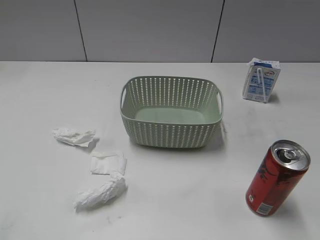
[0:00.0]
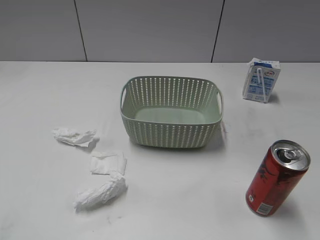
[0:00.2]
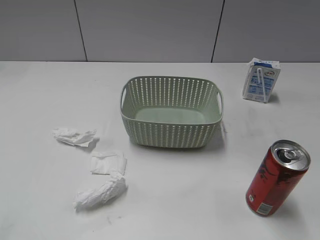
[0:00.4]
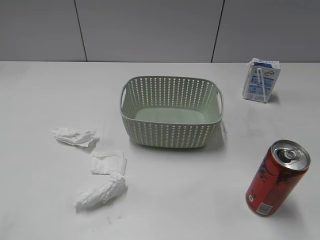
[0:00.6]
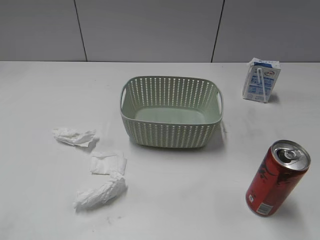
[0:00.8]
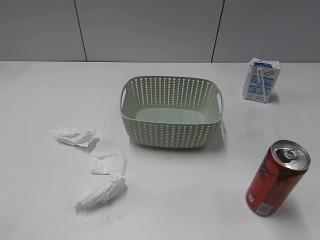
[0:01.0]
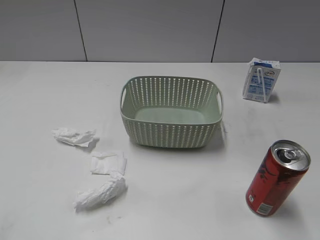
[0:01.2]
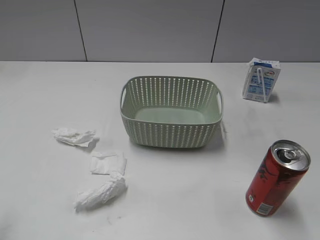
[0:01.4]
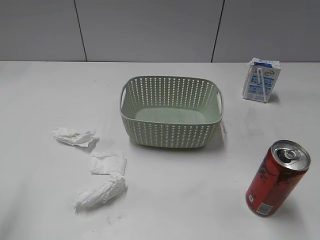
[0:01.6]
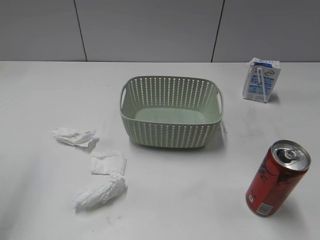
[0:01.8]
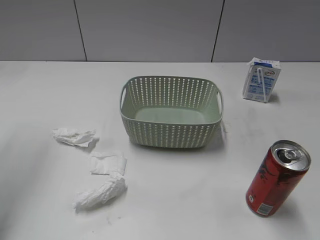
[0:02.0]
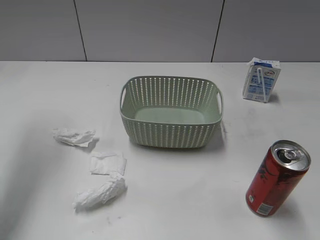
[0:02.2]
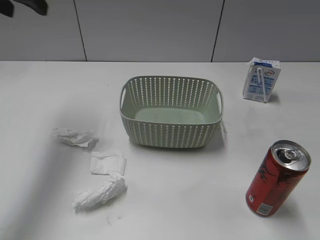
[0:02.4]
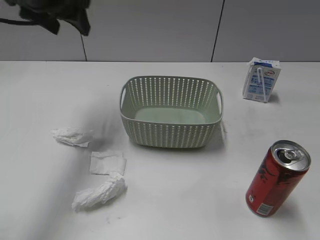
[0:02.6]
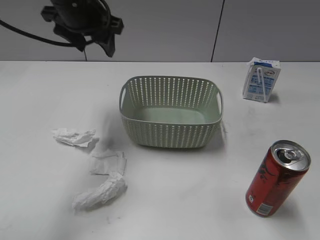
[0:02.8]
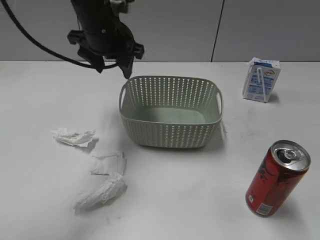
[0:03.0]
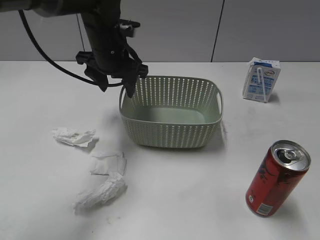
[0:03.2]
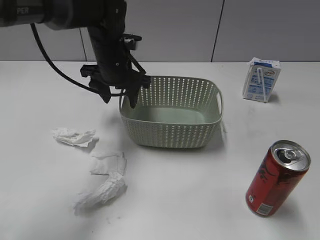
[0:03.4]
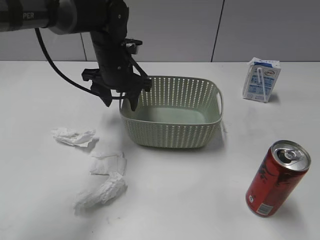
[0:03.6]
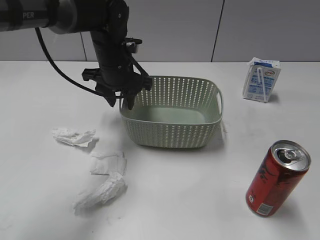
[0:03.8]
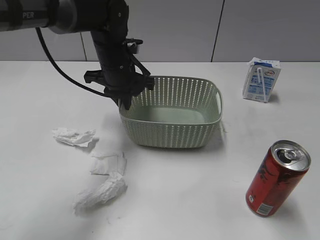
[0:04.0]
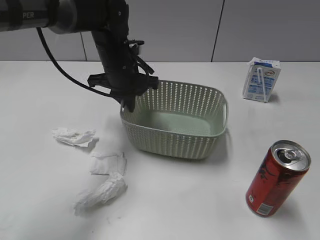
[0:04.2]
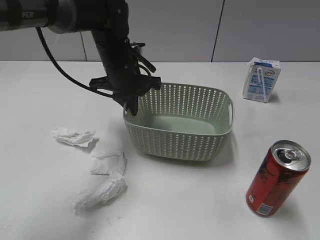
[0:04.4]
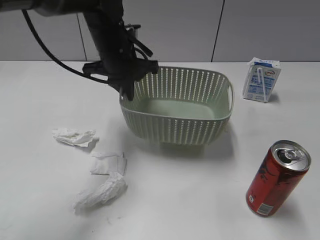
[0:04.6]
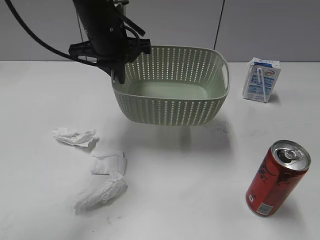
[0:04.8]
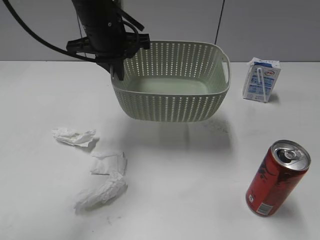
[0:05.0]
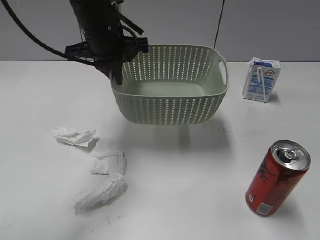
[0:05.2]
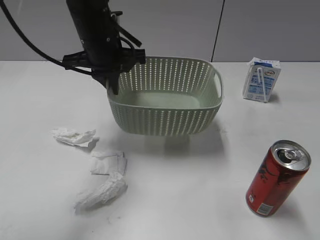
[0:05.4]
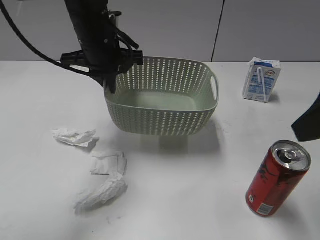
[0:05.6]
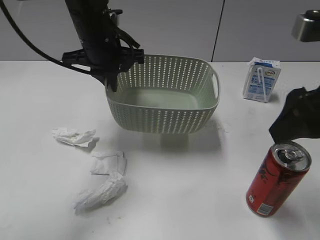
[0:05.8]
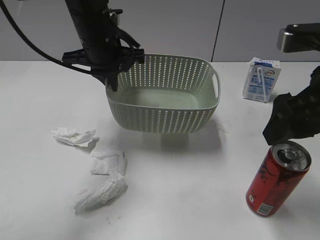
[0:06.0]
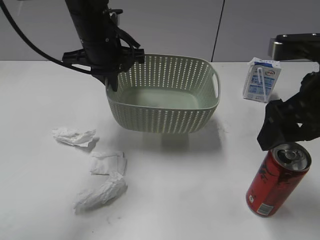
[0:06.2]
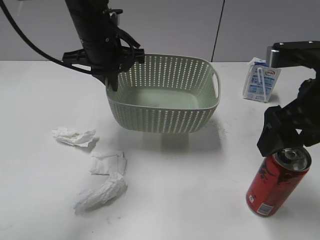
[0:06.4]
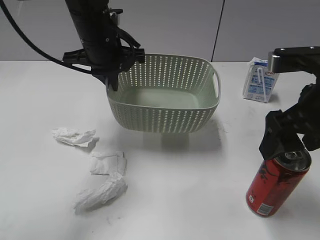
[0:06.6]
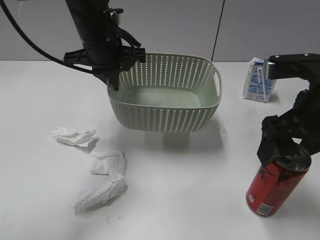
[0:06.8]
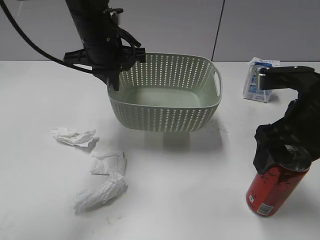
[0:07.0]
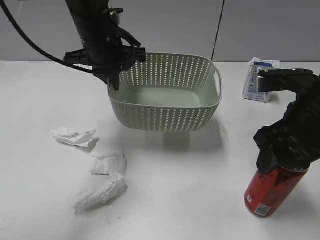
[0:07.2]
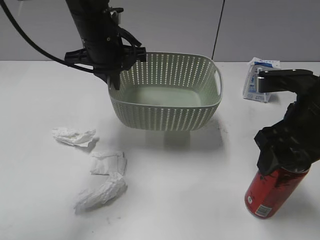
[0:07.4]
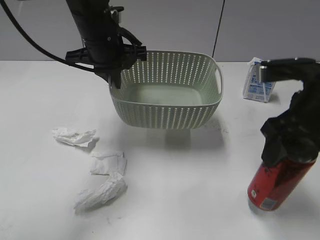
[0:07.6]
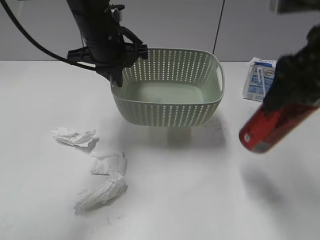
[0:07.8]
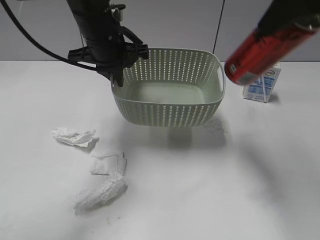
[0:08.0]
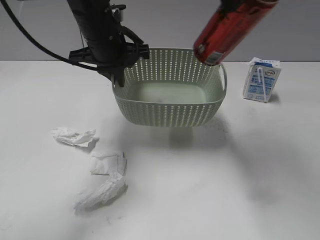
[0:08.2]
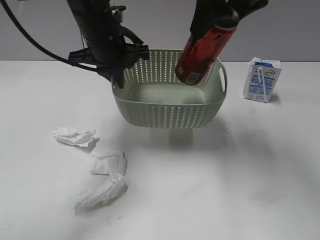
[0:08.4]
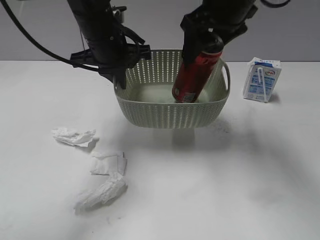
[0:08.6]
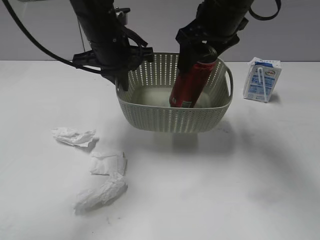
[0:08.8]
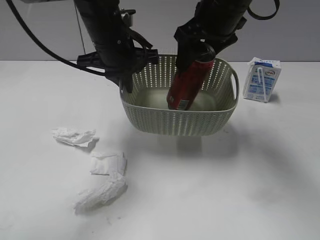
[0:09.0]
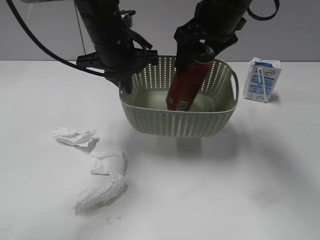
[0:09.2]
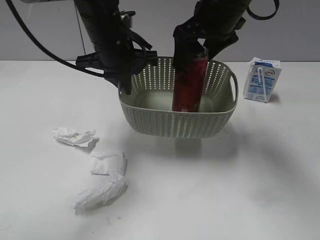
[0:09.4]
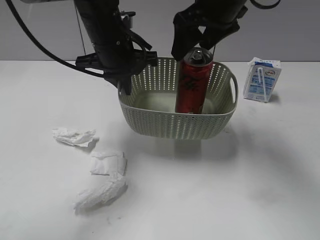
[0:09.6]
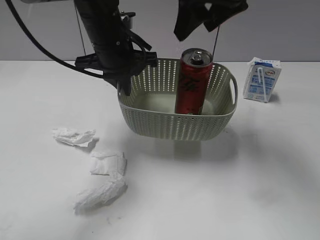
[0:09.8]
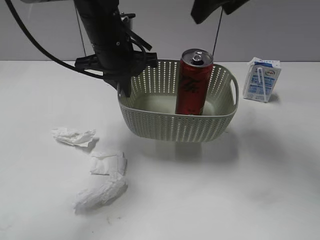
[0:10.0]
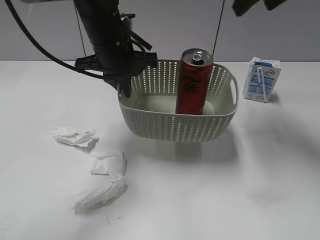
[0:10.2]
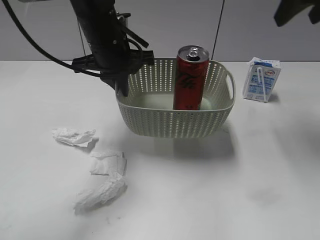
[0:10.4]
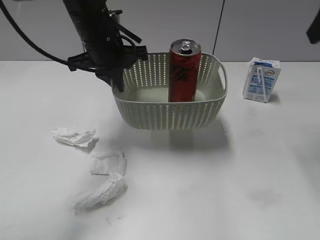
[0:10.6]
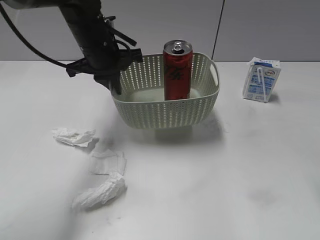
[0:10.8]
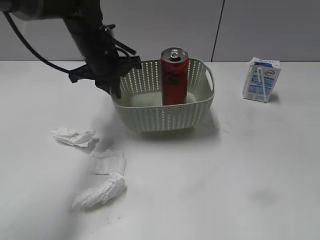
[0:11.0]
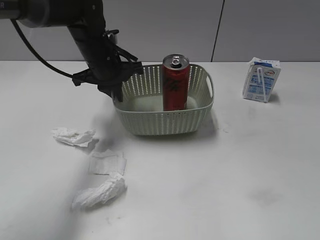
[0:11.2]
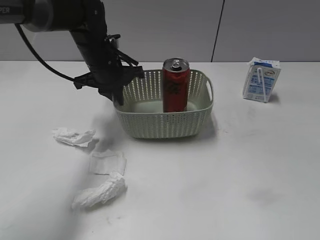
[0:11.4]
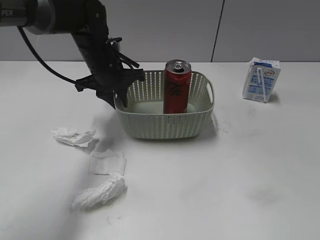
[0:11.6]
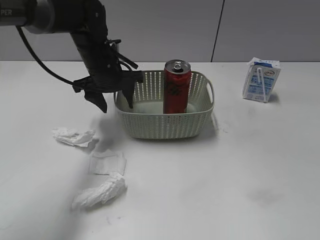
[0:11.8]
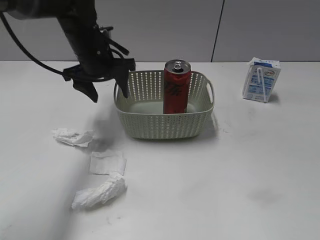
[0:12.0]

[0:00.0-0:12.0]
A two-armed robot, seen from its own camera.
Step, 0:02.4 to 0:04.0: Grasp the basket with left gripper.
Step, 0:04.2 to 0:05.4: Lift the basket with left gripper.
Step, 0:05.6 to 0:07.4: Grasp the cola can with right gripper.
Step, 0:07.6 to 0:09.6: Place the cola can in the basket with right gripper.
Step, 0:09.8 to 0:11.8: Place the basket on the table with left gripper.
0:01.6 to 0:03.0: The left gripper is displaced forward, to the right and downward by approximately 35 cm.
0:03.0 to 0:04.4: The left gripper goes some 5 cm downward, and closes.
0:04.4 to 0:06.0: The right gripper is displaced forward and to the left by about 25 cm, and opens up. The left gripper moves upward, about 5 cm.
0:06.0 to 0:07.6: The right gripper closes up.
0:07.6 to 0:09.0: The right gripper is displaced forward and to the left by roughly 20 cm, and goes upward and returns, some 15 cm each way.
0:09.0 to 0:10.4: The right gripper moves to the right and upward, some 15 cm, and opens up.
0:10.4 to 0:12.0: The right gripper travels backward by about 35 cm. The left gripper ends up some 5 cm from where it was, and opens up.

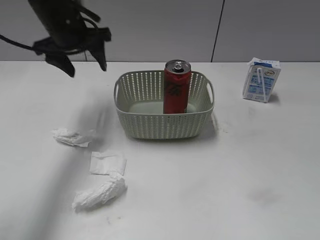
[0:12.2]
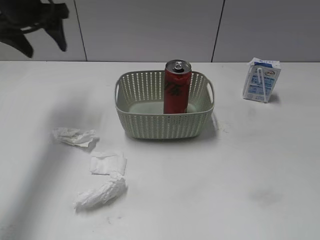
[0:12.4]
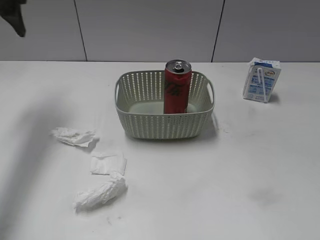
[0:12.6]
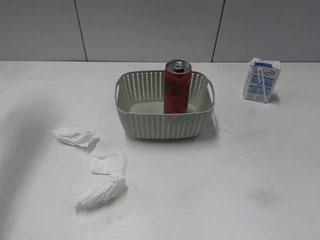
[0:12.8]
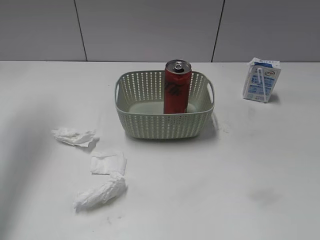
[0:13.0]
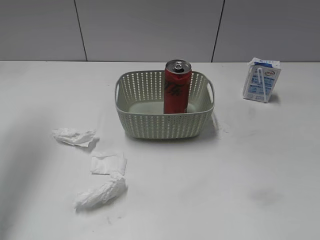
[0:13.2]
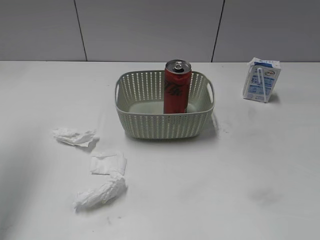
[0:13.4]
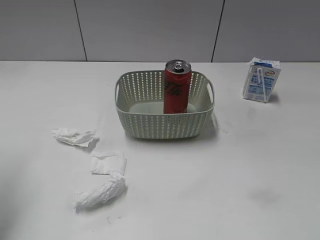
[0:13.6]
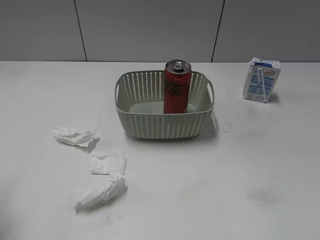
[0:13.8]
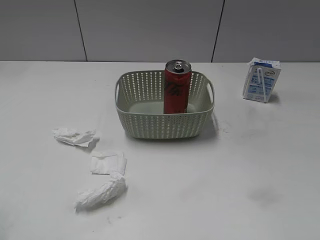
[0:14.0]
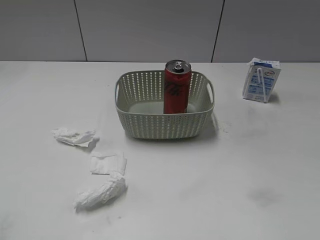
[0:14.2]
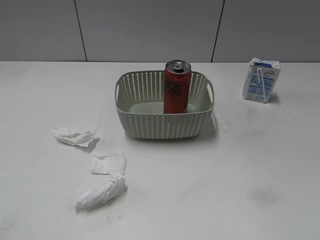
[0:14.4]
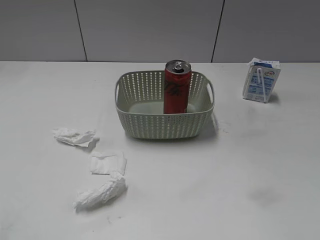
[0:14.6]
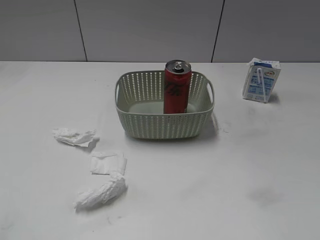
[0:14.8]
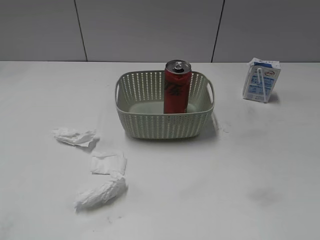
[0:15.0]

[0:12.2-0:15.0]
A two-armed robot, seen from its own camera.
0:12.2 to 0:13.6: The left gripper shifts approximately 25 cm backward and to the left.
0:13.6 to 0:15.0: The left gripper is displaced backward by approximately 25 cm.

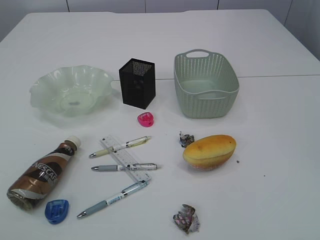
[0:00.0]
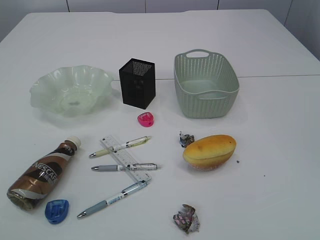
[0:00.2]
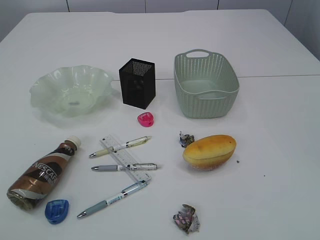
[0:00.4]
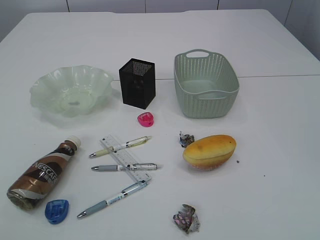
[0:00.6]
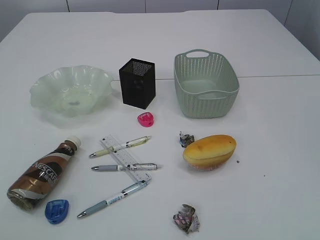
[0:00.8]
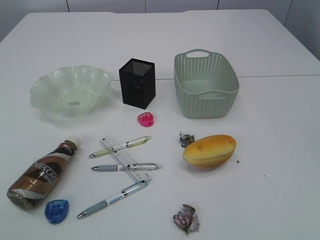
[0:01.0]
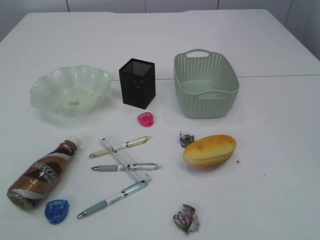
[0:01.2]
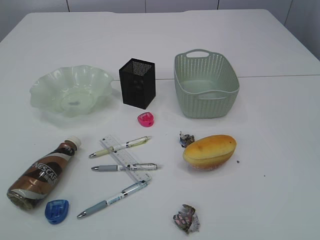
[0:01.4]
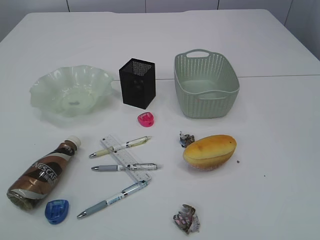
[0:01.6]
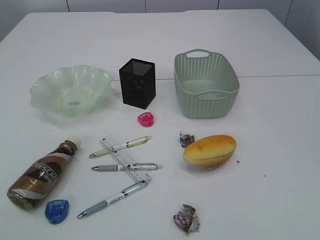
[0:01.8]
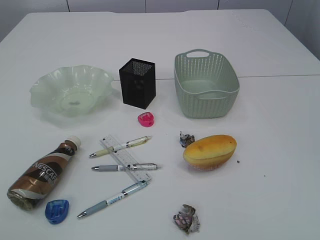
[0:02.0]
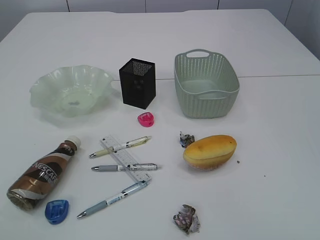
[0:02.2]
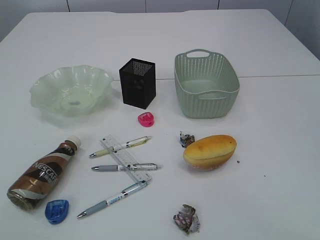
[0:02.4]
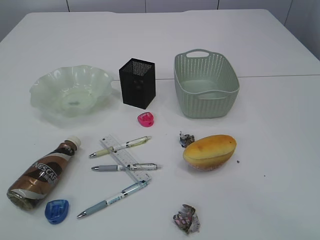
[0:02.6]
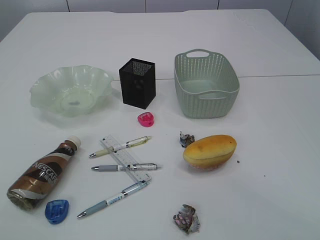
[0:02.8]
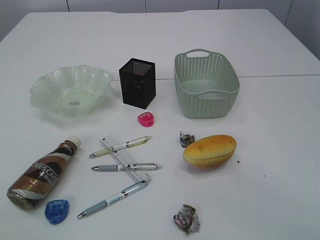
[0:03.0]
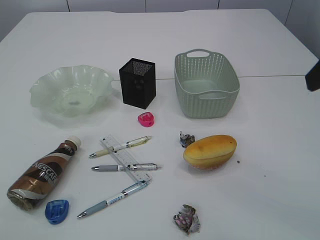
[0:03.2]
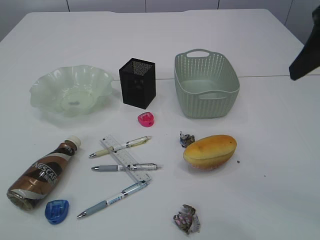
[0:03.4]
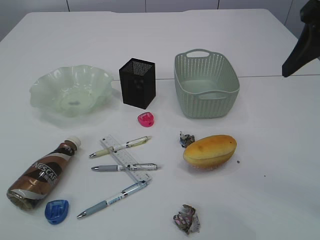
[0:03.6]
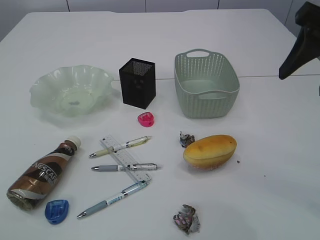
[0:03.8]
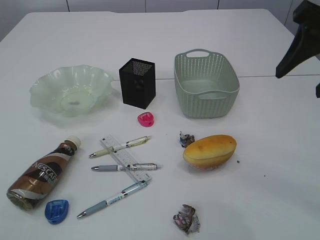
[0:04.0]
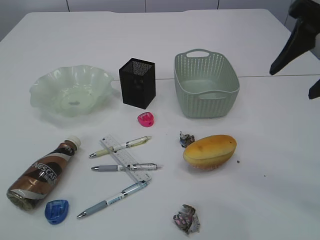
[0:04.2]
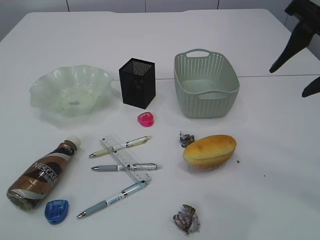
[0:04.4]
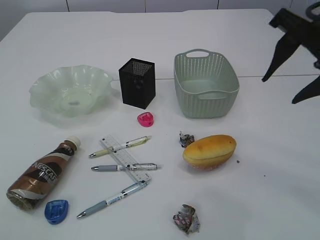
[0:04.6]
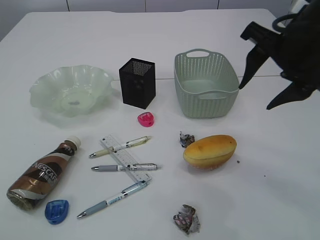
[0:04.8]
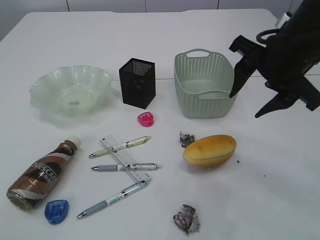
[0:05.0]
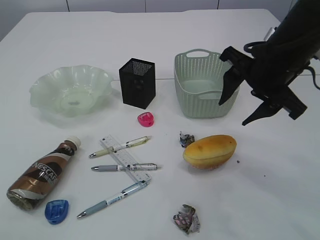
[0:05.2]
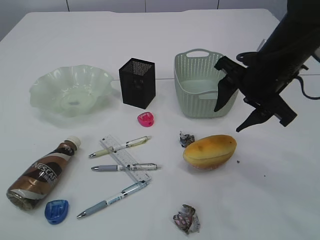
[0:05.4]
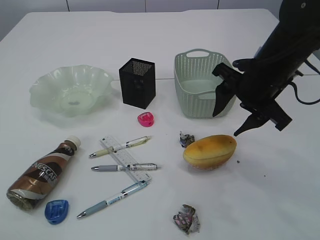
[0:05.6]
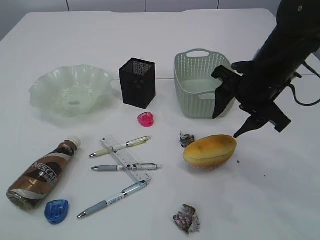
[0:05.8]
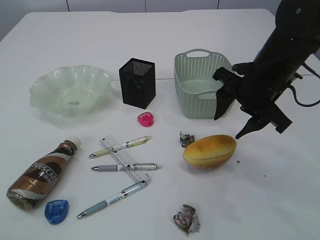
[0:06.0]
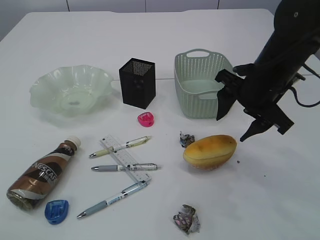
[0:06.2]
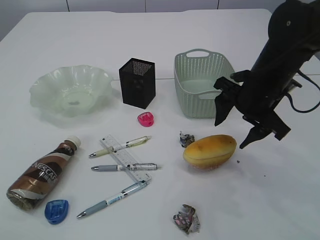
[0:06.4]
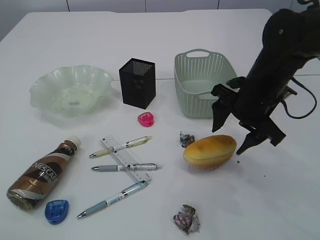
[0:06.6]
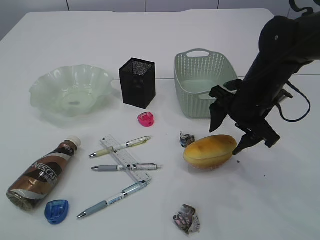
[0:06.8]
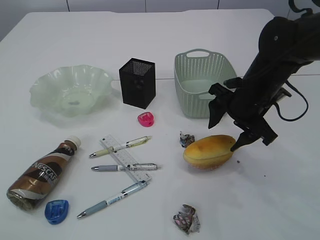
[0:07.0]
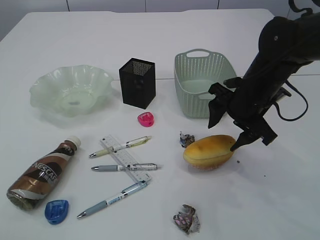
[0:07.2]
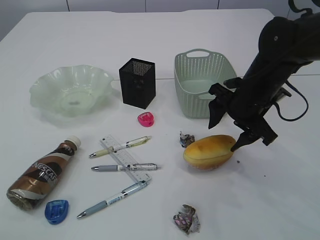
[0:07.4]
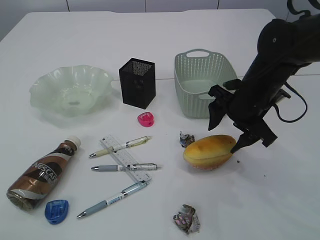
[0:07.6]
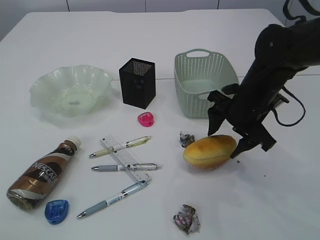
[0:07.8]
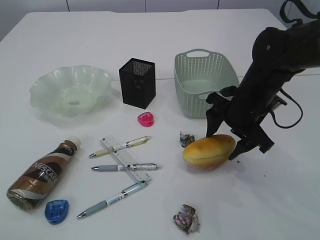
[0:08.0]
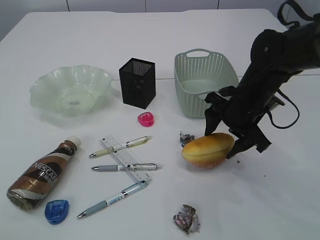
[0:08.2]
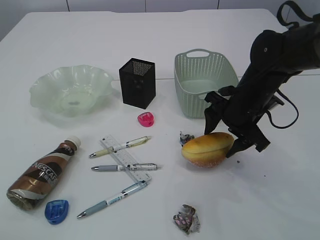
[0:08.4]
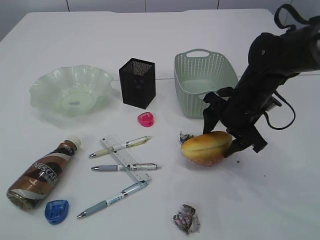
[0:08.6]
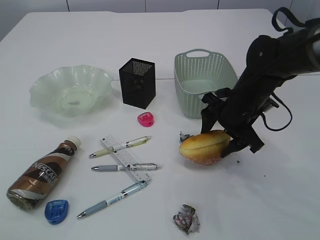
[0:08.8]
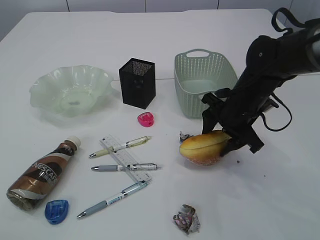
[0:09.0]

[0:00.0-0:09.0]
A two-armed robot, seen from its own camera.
0:03.0 to 0:04.4: The right gripper shifts approximately 10 cm forward.
0:04.4 to 0:06.0: The right gripper heads downward, forward and to the left, covering some 15 cm.
0:06.0 to 0:07.6: The right gripper shifts by roughly 5 cm.
0:07.6 to 0:09.0: The grippers make only small movements.
